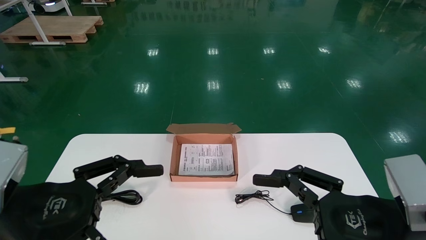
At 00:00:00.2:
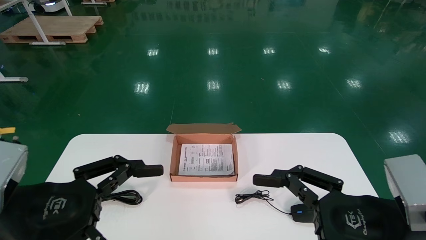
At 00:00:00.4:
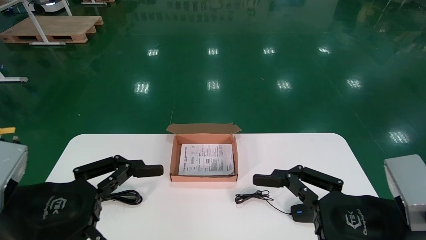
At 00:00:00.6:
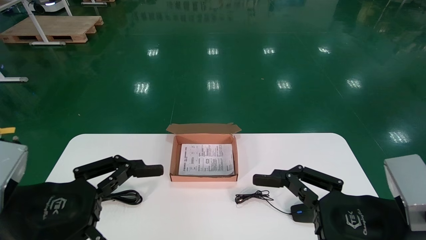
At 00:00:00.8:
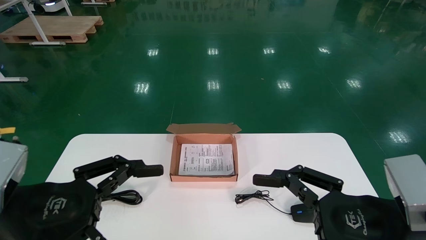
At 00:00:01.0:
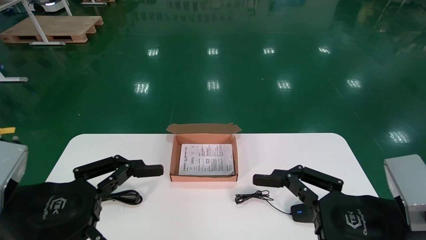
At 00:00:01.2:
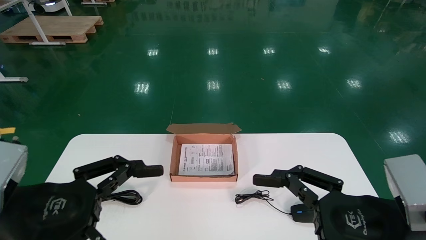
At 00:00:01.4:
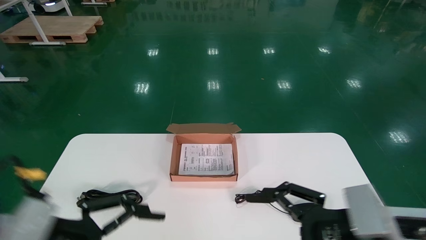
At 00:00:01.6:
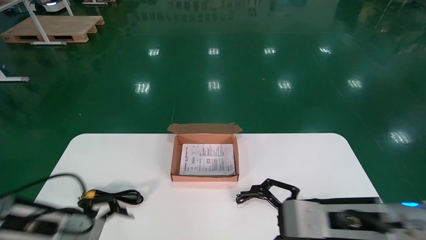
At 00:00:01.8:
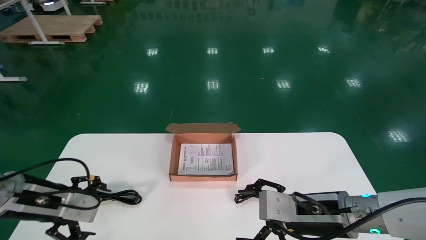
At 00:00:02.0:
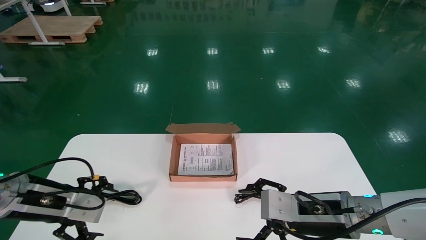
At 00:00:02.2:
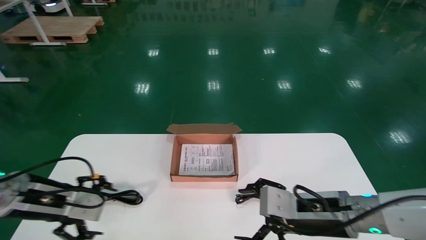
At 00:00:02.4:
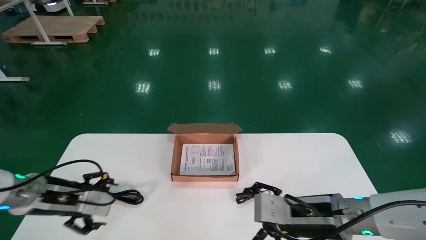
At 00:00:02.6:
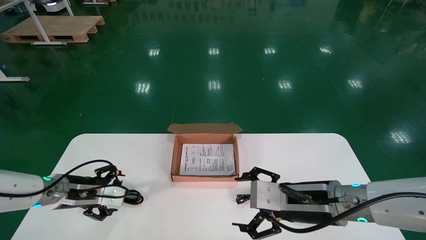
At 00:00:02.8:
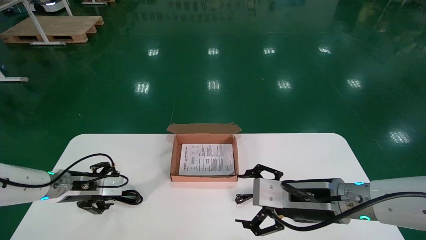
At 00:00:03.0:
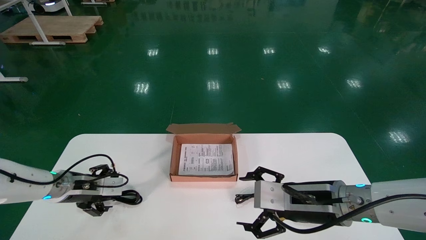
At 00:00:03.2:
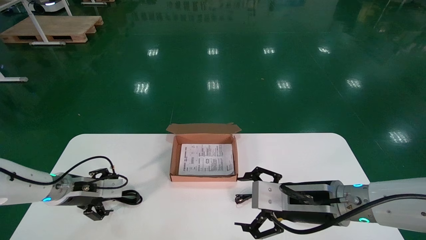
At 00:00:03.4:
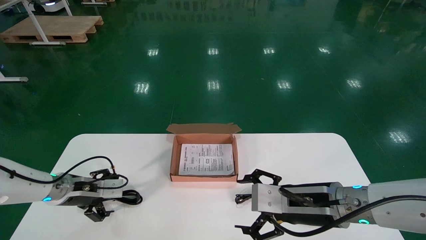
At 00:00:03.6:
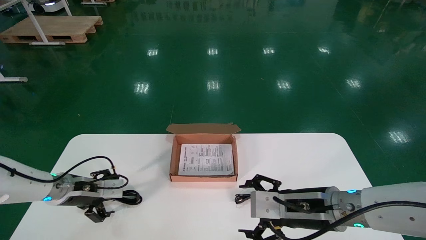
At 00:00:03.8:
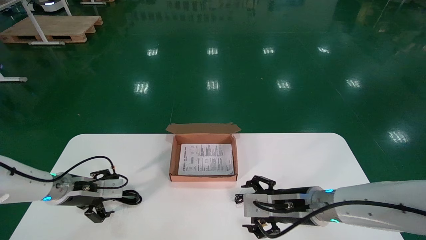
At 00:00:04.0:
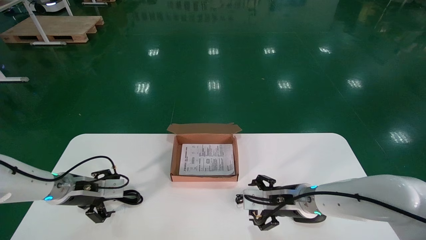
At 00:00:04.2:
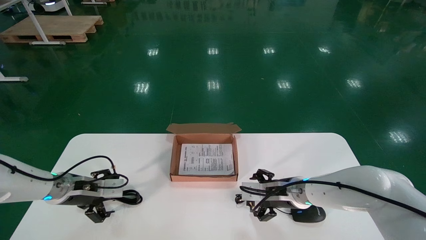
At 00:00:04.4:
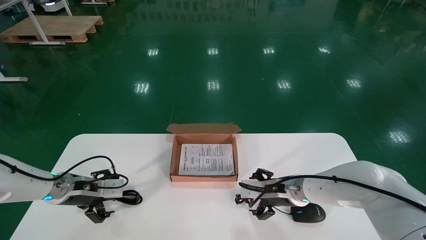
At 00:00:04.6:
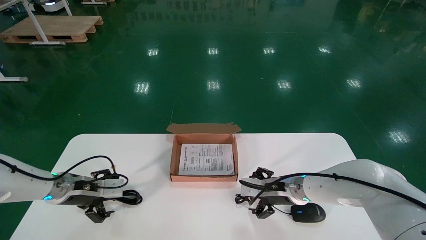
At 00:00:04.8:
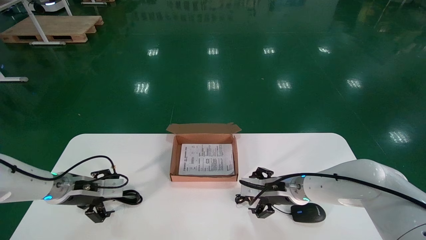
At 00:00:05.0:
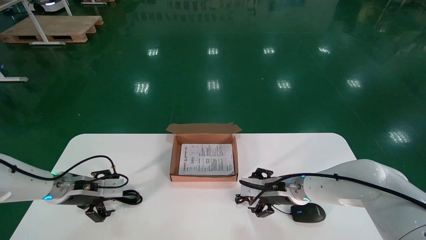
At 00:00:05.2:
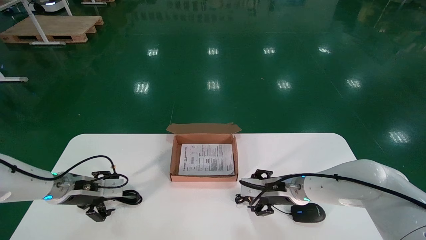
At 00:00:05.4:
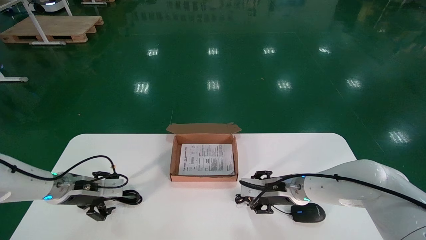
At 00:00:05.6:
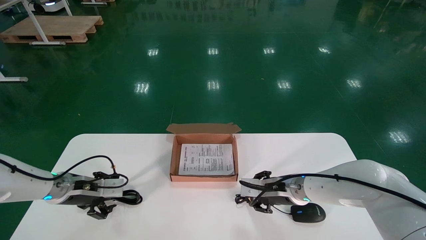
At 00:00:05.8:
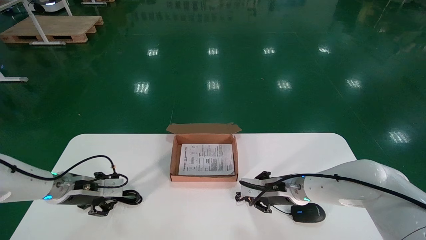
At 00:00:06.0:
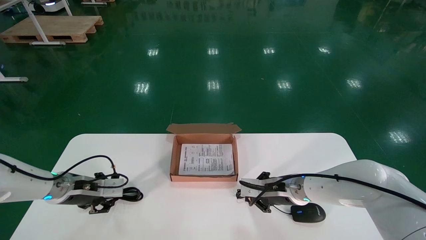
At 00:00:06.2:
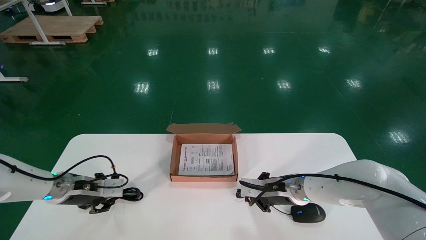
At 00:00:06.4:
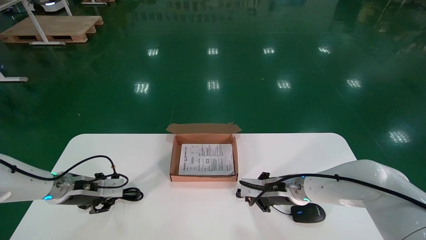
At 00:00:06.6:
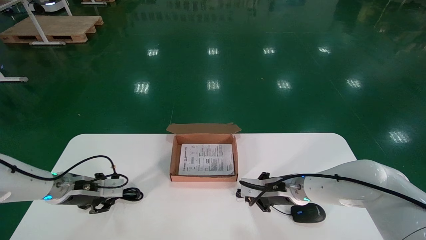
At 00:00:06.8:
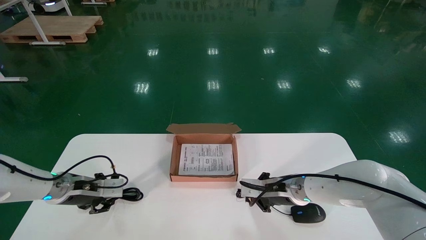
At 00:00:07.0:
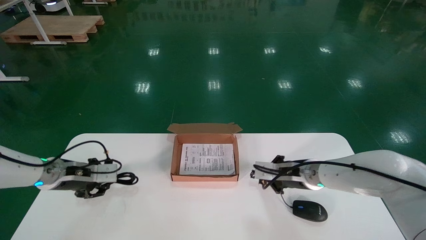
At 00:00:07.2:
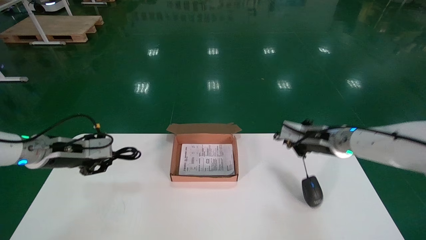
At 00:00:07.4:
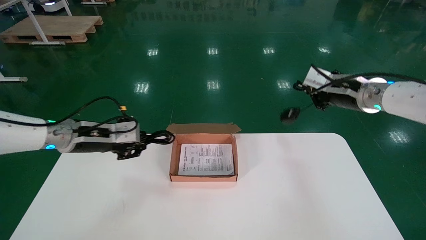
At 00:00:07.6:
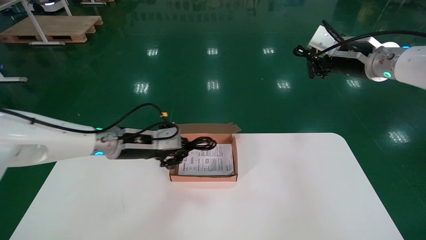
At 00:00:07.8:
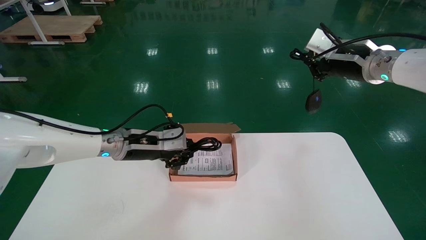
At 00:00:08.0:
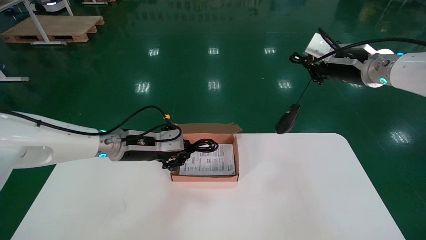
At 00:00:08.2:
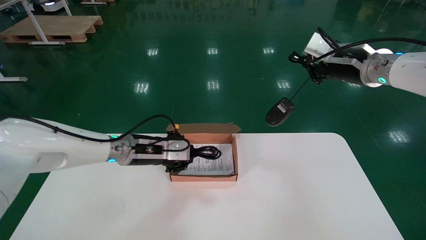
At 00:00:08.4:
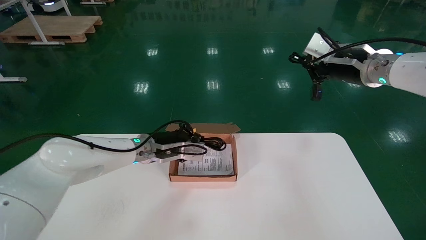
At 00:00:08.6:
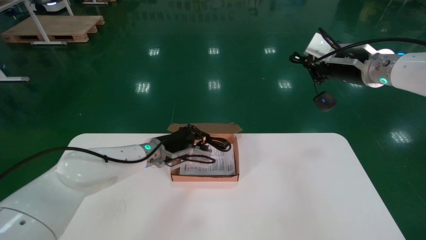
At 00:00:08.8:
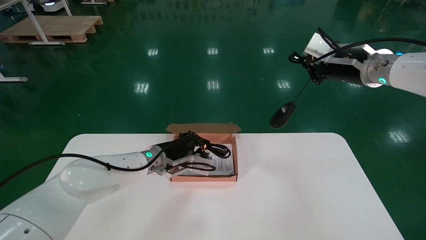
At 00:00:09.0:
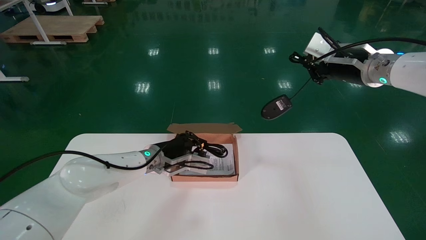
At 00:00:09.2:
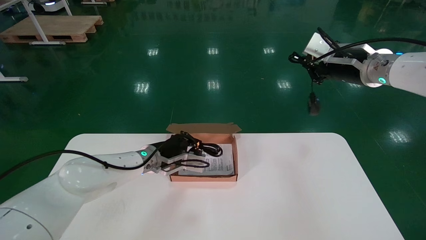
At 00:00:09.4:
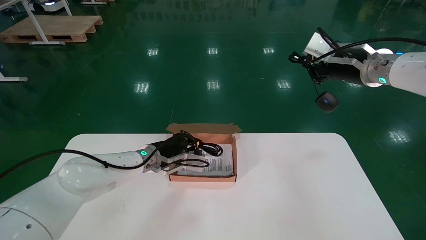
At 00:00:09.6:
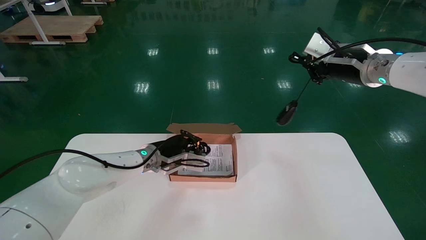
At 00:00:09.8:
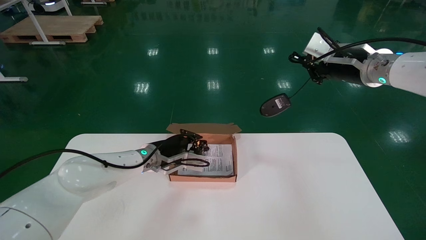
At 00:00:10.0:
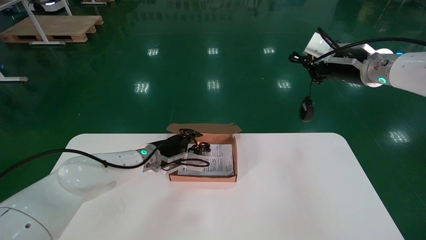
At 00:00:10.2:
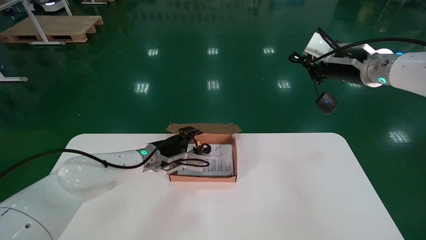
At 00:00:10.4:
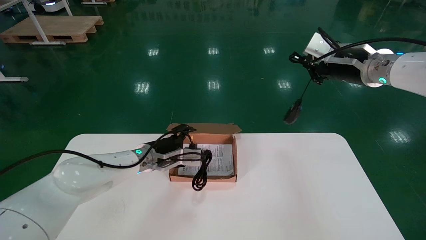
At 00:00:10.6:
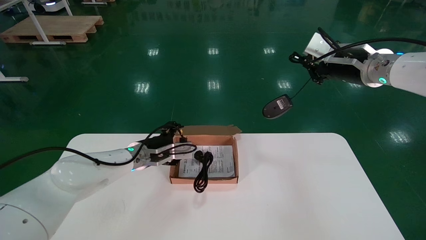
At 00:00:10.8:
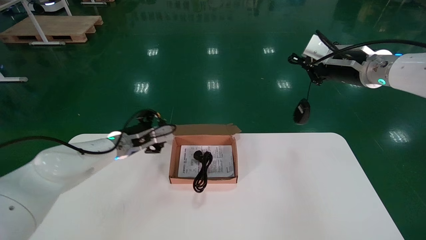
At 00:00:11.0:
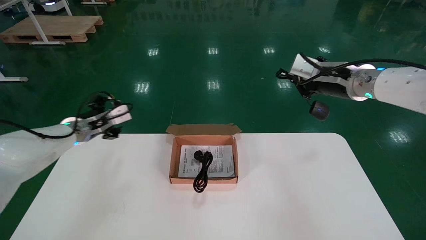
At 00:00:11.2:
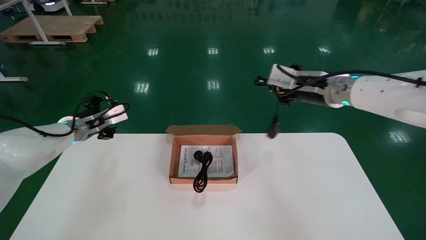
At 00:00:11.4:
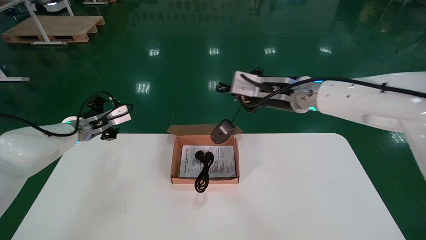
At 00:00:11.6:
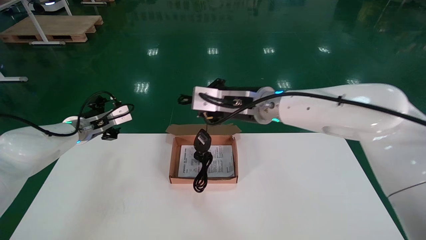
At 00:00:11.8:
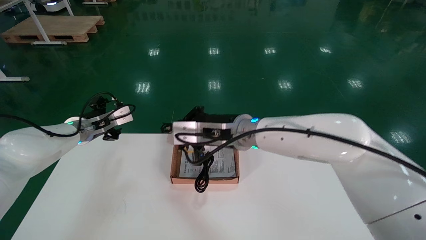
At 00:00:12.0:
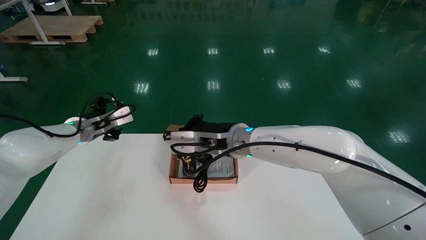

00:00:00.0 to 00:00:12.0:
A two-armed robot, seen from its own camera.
Step, 00:00:01.6 to 00:00:06.2: Simultaneously pick up the mouse and power cord from the accessory packaging area.
00:00:00.0 to 00:00:01.6: Both grippers move forward, approximately 10 cm.
00:00:01.6 to 00:00:03.0: The left gripper goes about 15 cm forward. Meanwhile the right gripper changes place by roughly 5 cm.
00:00:03.0 to 00:00:04.4: The right gripper heads forward and downward, covering approximately 15 cm.
00:00:04.4 to 00:00:06.0: The left gripper closes up; the right gripper closes up.
00:00:06.0 to 00:00:07.6: The left gripper is displaced to the right and upward by approximately 15 cm, while the right gripper moves upward and to the right, approximately 30 cm.
00:00:07.6 to 00:00:09.0: The left gripper travels to the right, downward and forward by approximately 10 cm.
00:00:09.0 to 00:00:10.4: The left gripper opens.
00:00:10.4 to 00:00:12.0: The left gripper travels to the left and upward by some 15 cm. The right gripper moves to the left and downward, some 30 cm.

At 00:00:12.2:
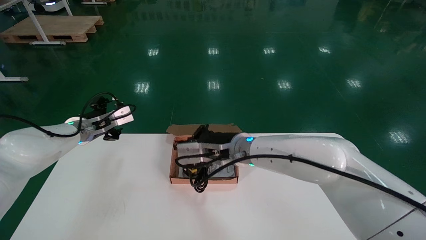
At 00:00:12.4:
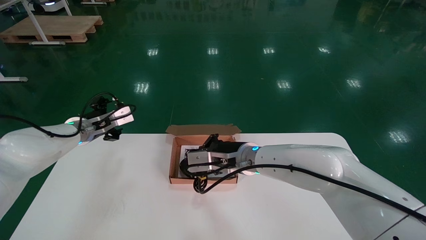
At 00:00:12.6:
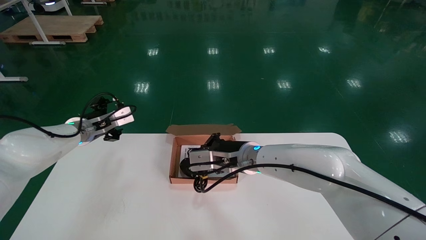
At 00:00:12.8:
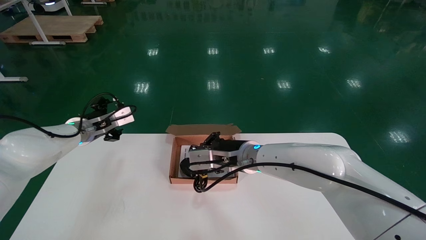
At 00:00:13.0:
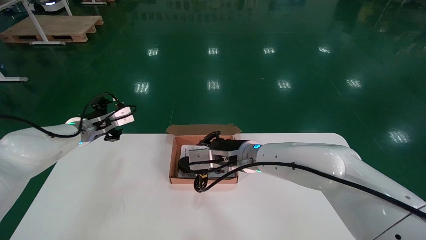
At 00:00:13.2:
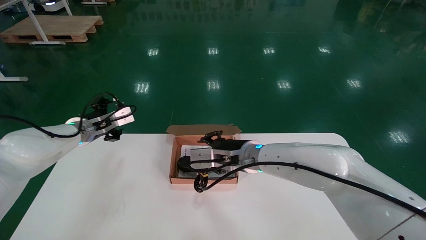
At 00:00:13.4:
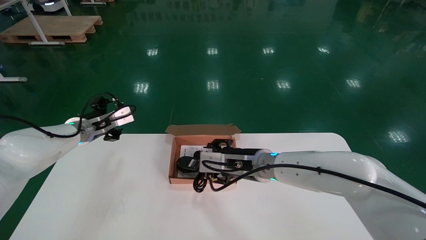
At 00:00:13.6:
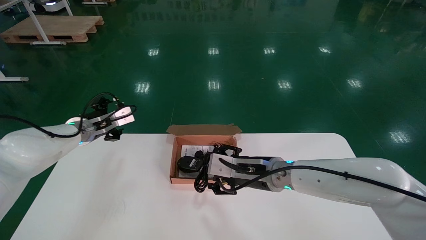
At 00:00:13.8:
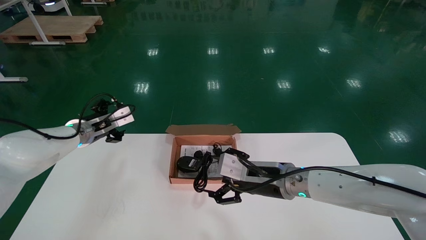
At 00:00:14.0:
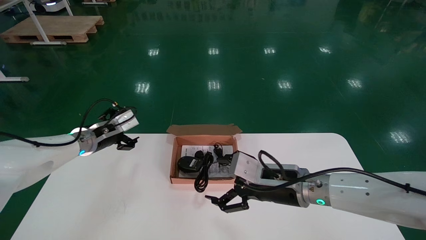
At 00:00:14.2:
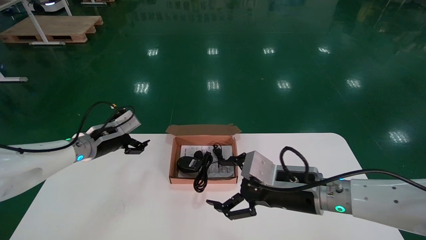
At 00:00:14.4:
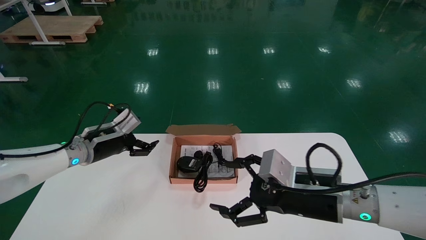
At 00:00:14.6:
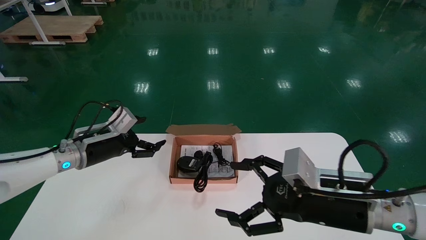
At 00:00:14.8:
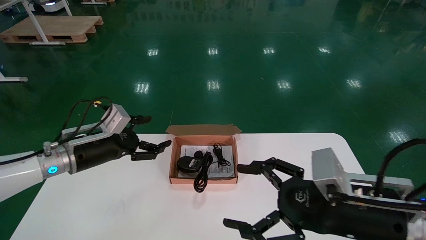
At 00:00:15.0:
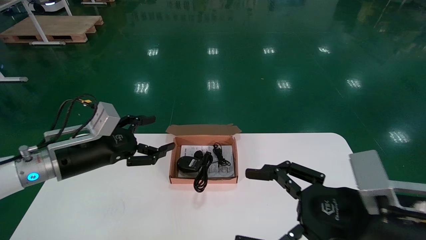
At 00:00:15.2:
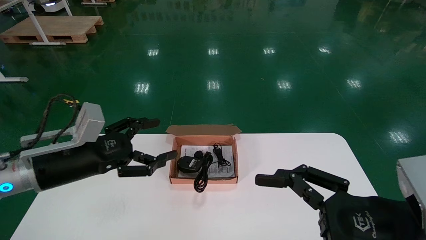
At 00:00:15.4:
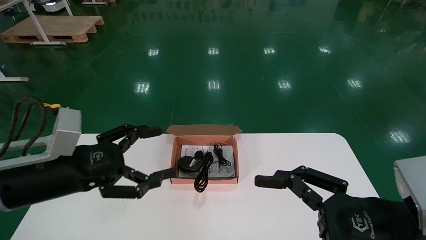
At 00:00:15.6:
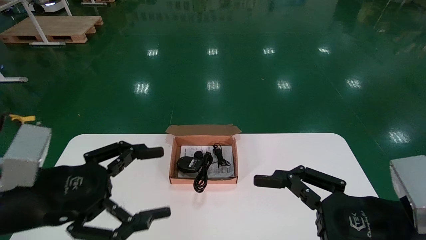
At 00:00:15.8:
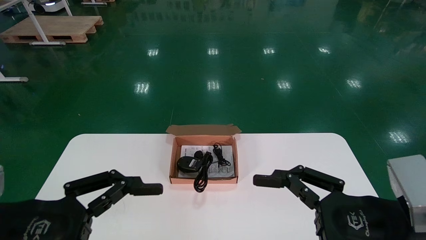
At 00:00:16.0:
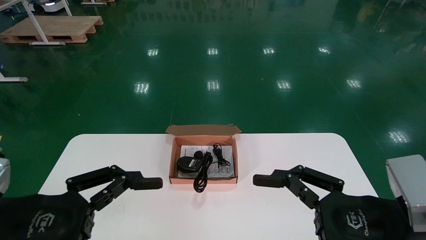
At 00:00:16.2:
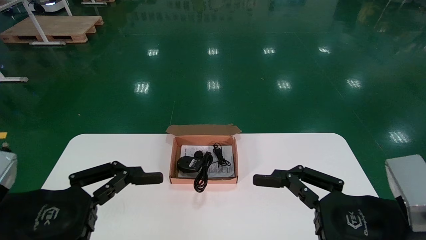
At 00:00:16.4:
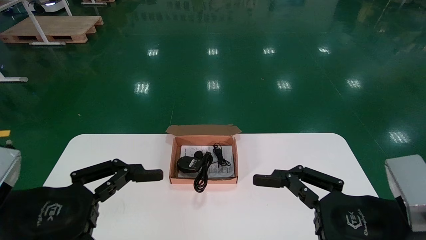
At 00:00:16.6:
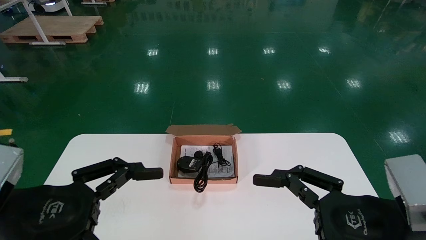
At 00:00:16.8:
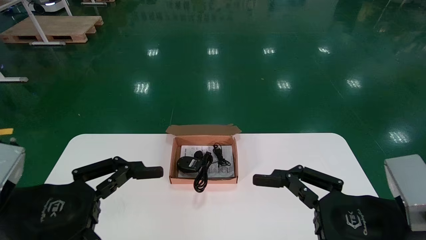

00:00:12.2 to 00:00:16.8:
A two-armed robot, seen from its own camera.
00:00:12.2 to 00:00:13.8: The right gripper heads to the right and downward, covering about 10 cm, and opens up.
00:00:13.8 to 00:00:15.2: The right gripper heads backward and to the right, covering some 25 cm; the left gripper goes some 20 cm backward.
00:00:15.2 to 00:00:16.8: The left gripper goes roughly 15 cm backward.
